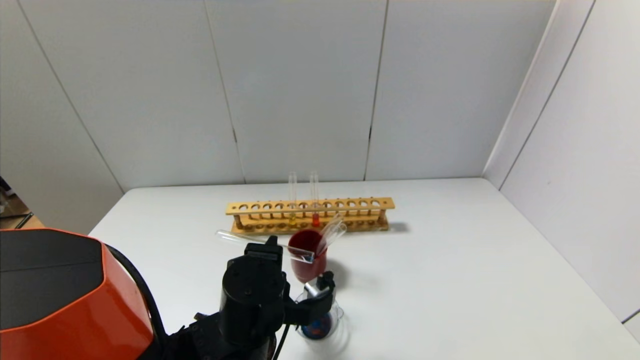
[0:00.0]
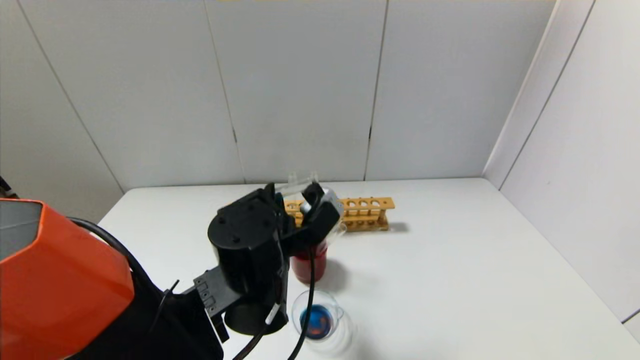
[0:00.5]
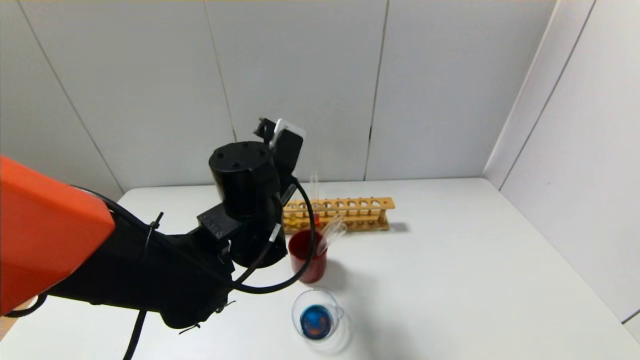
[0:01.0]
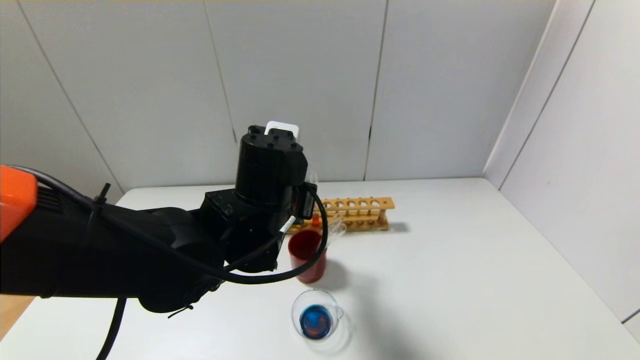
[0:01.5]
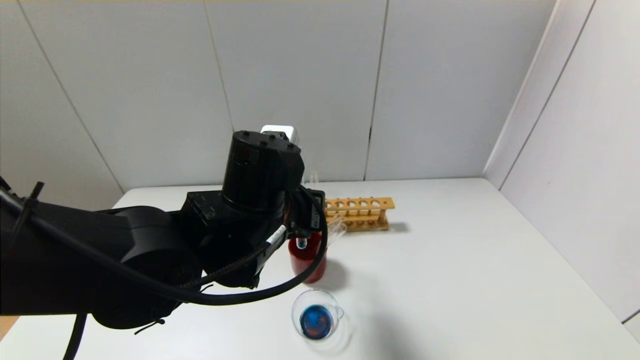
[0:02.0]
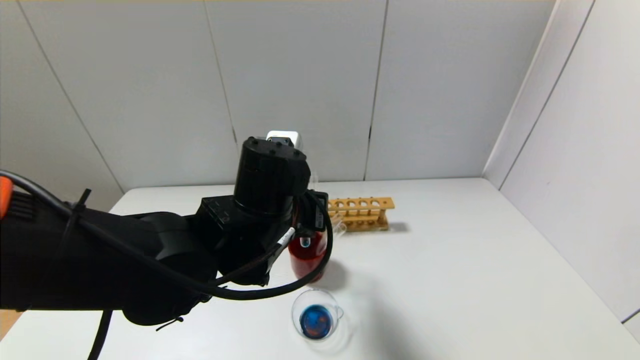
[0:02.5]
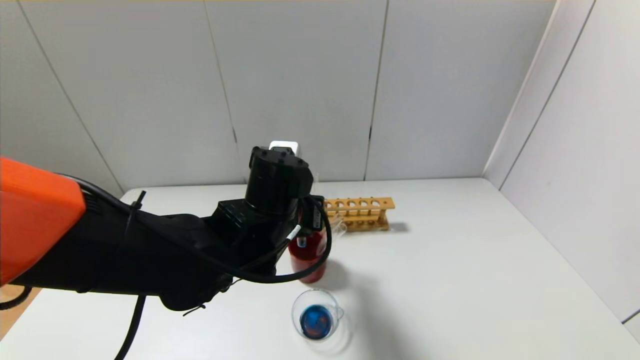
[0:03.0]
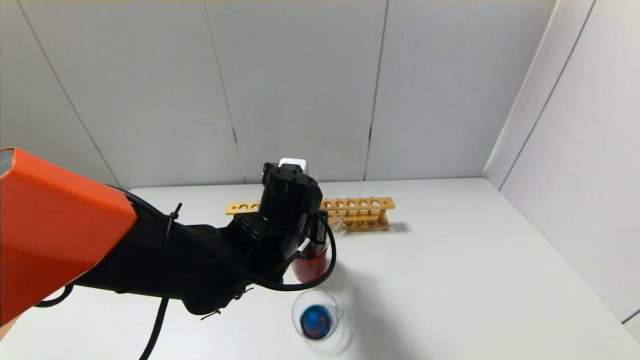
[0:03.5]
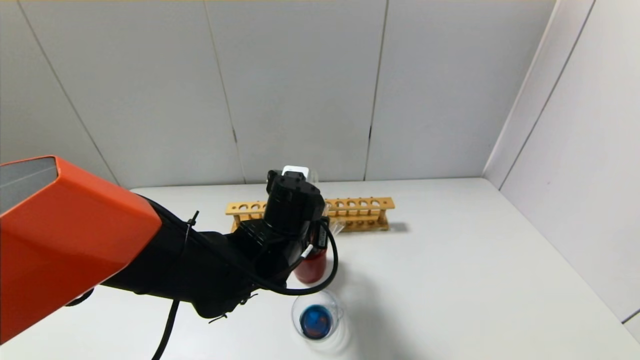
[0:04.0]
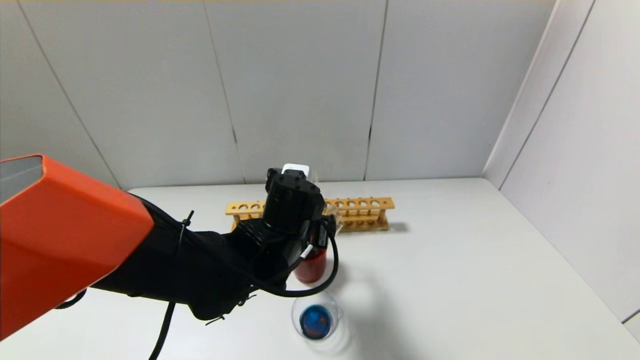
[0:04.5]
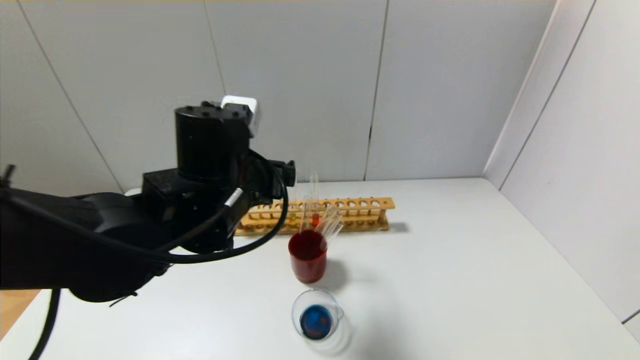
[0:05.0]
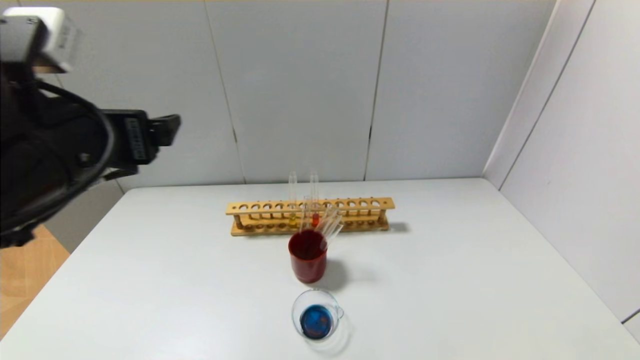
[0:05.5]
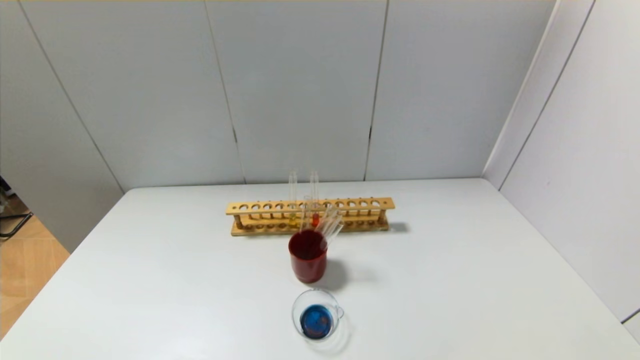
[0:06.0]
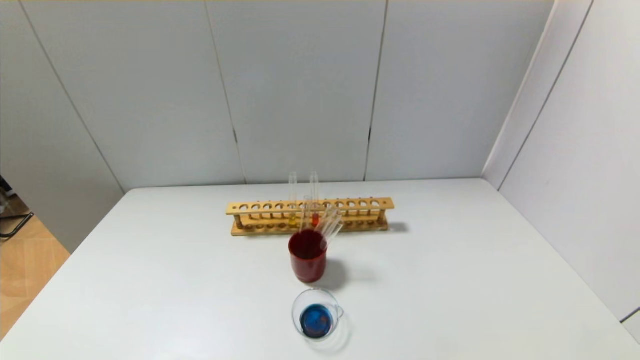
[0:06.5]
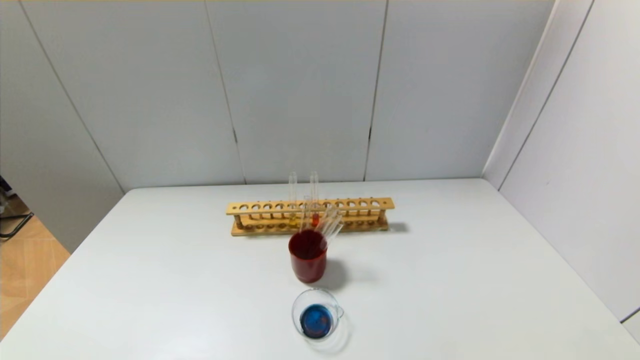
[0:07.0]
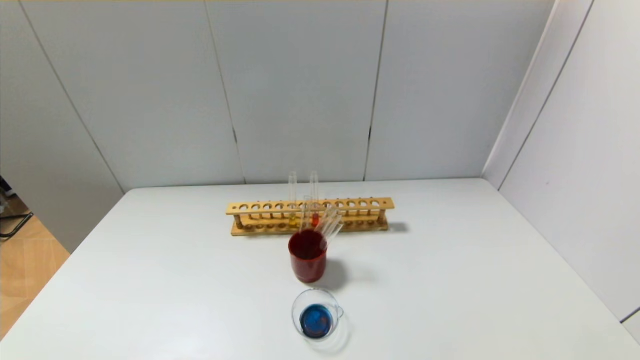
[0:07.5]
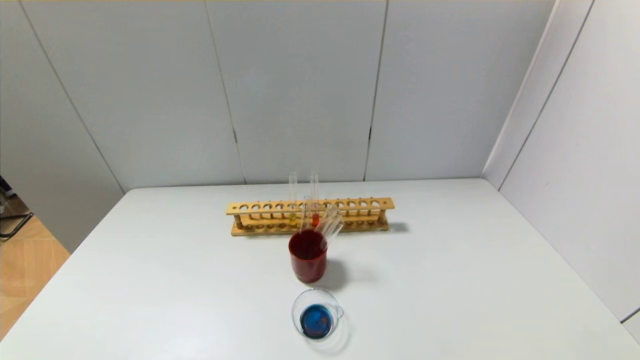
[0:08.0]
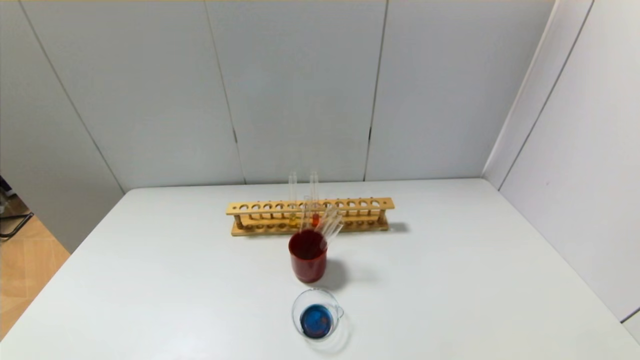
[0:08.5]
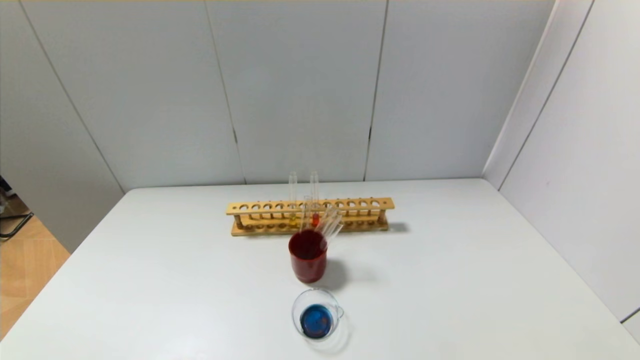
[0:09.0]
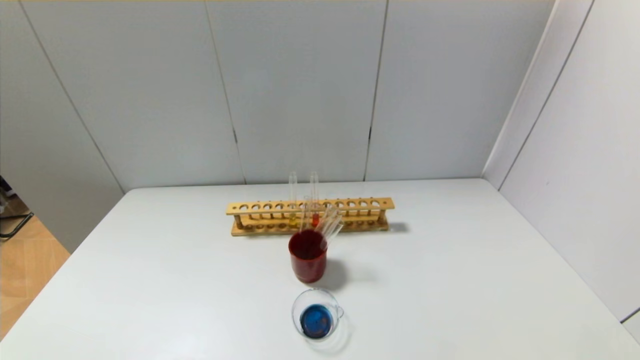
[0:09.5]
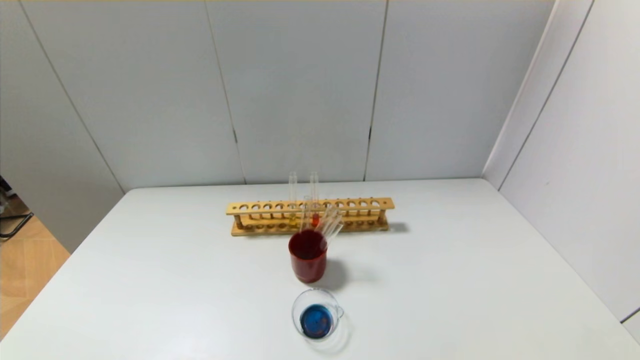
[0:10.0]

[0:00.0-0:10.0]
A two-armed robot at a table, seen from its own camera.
Step, 0:00.0 to 0:04.0: Place the test tube into the brown cup with the left gripper.
0:00.0 to 0:02.0: The left gripper shifts about 10 cm upward.
0:02.0 to 0:04.0: The left gripper moves downward, roughly 10 cm.
0:04.0 to 0:06.0: The left gripper goes some 35 cm to the left, backward and upward, and opens up.
0:08.0 to 0:10.0: The two grippers keep their place.

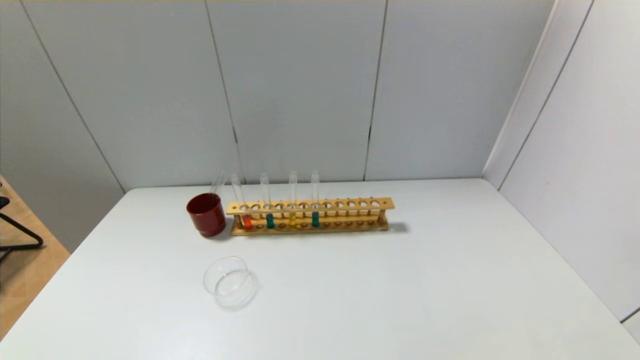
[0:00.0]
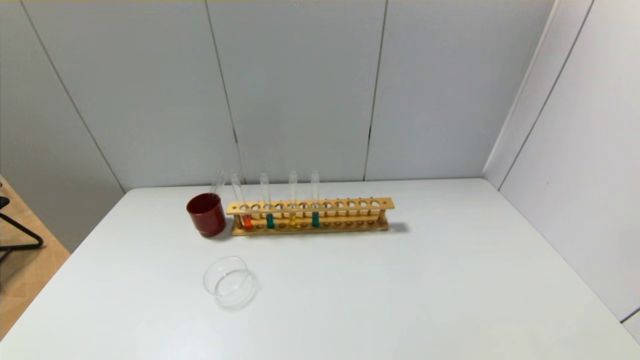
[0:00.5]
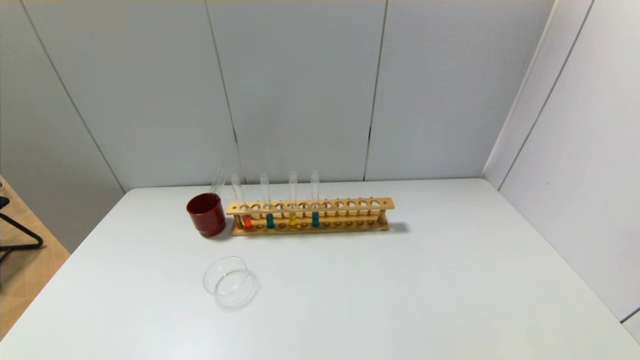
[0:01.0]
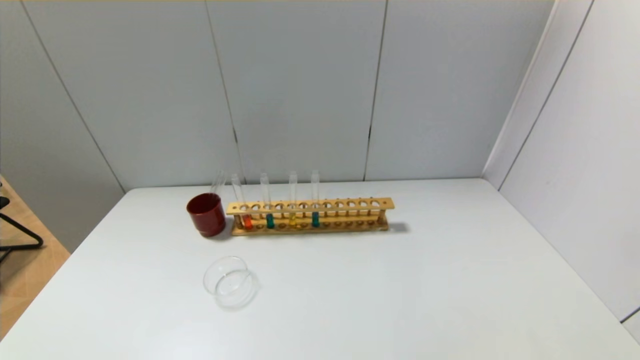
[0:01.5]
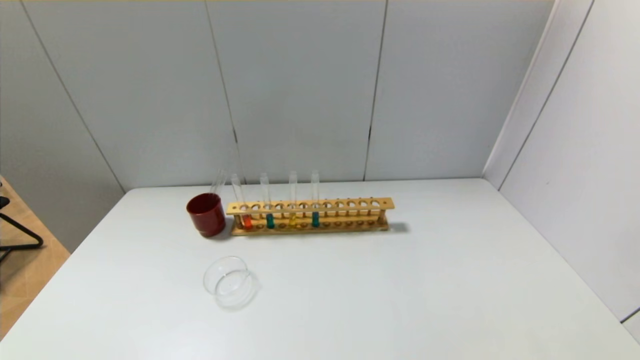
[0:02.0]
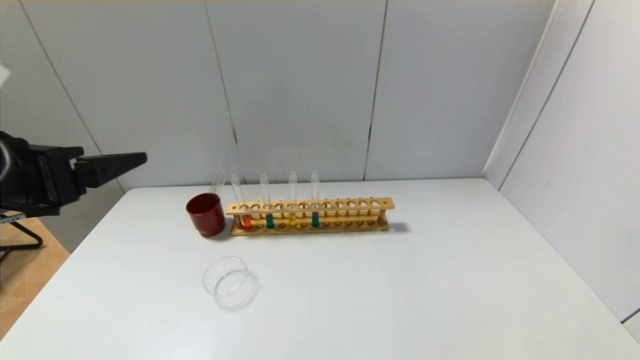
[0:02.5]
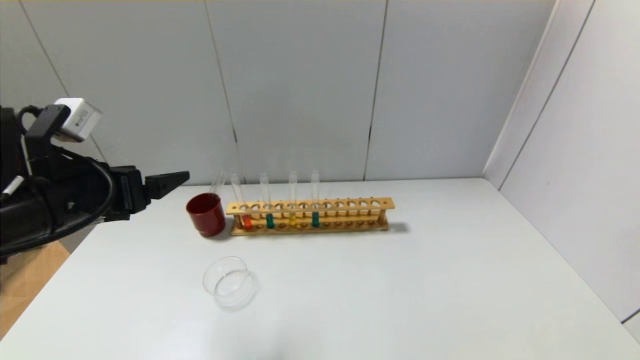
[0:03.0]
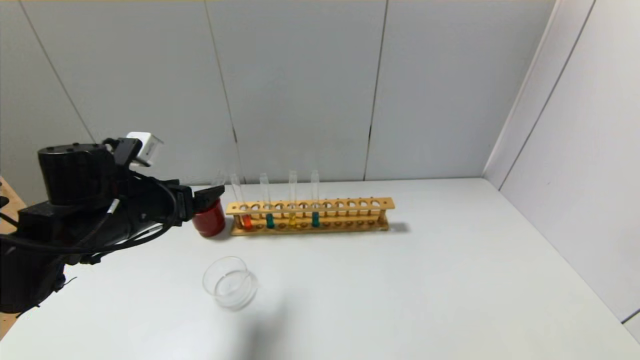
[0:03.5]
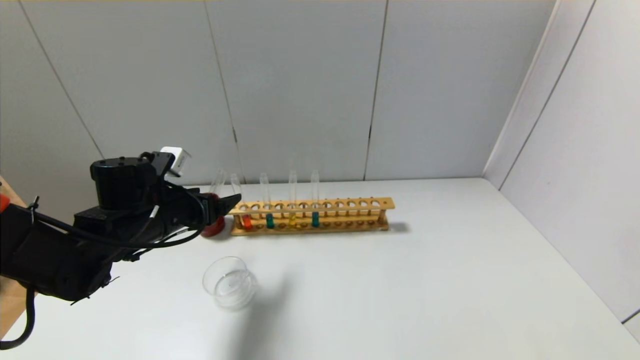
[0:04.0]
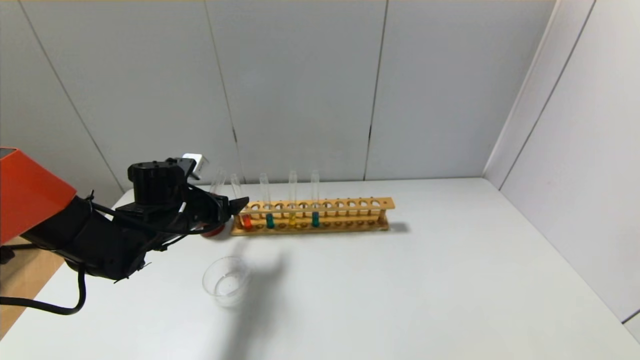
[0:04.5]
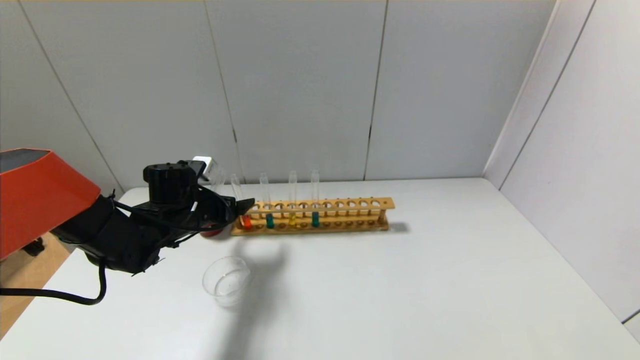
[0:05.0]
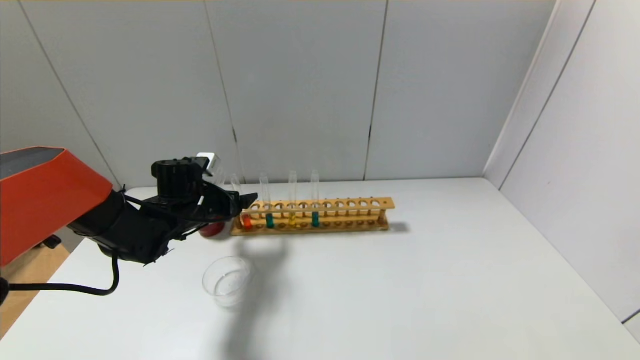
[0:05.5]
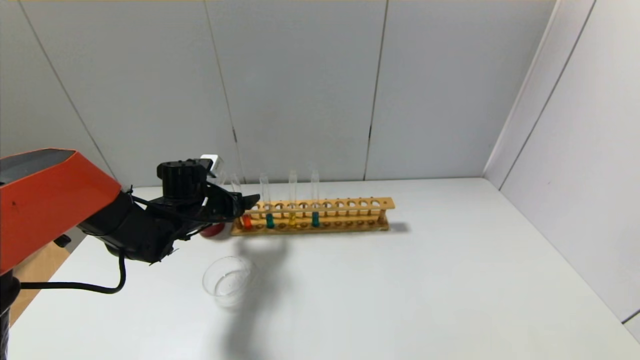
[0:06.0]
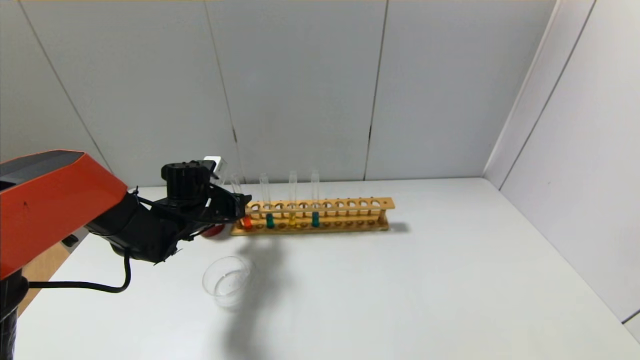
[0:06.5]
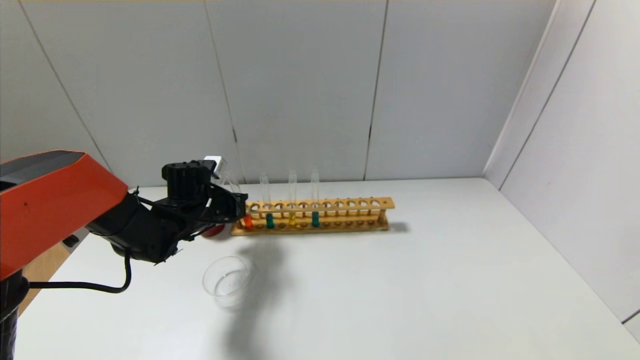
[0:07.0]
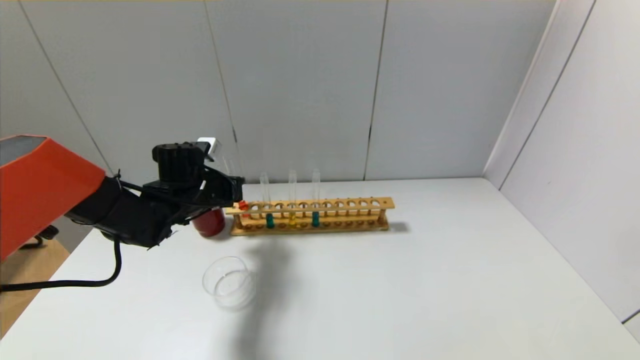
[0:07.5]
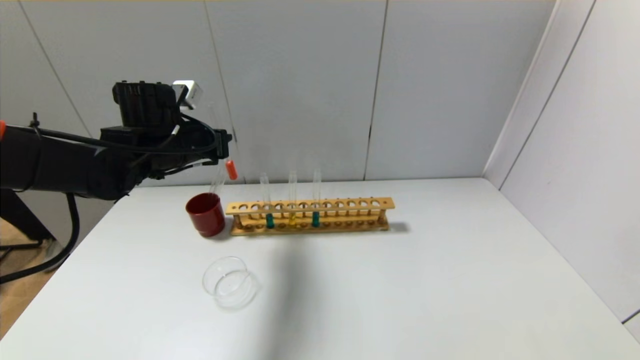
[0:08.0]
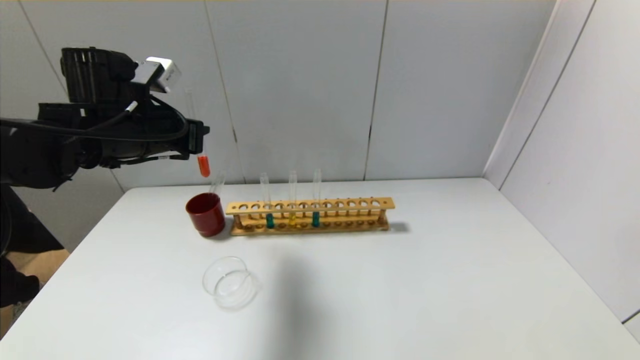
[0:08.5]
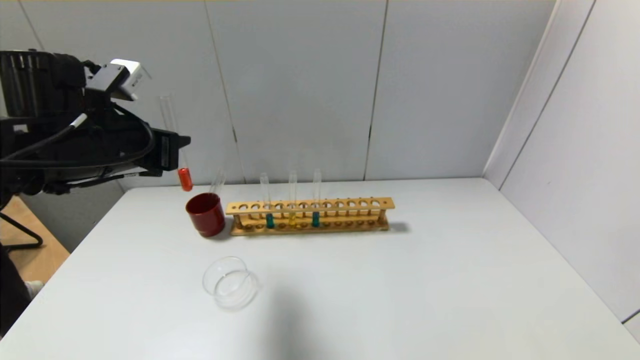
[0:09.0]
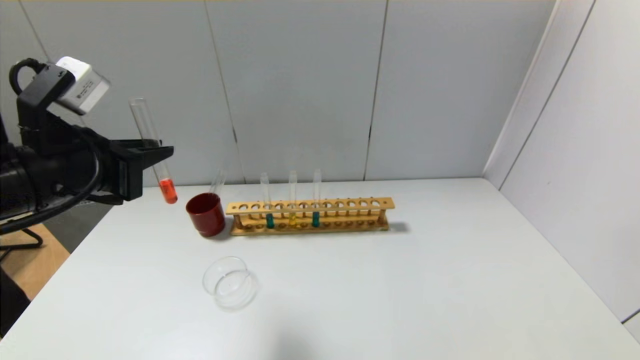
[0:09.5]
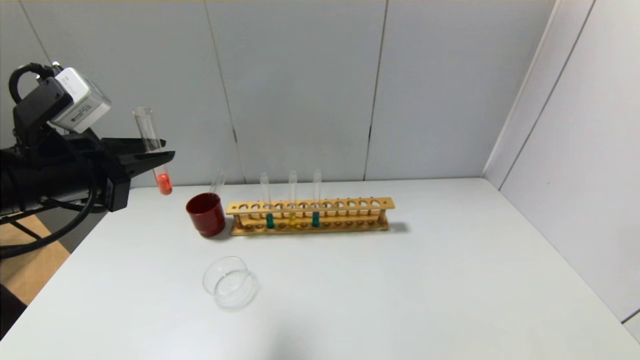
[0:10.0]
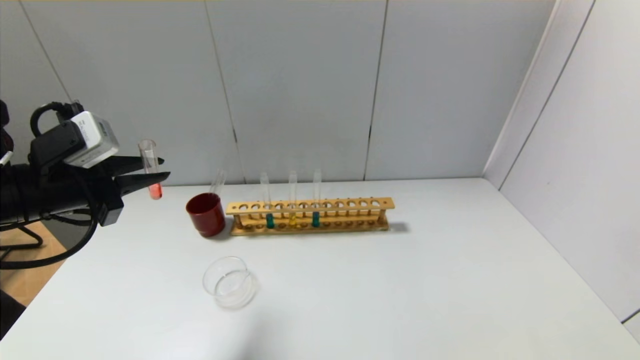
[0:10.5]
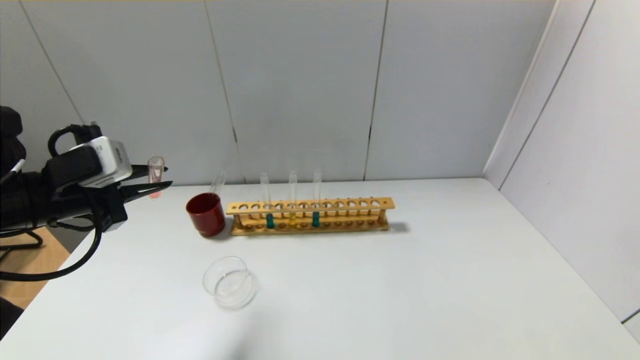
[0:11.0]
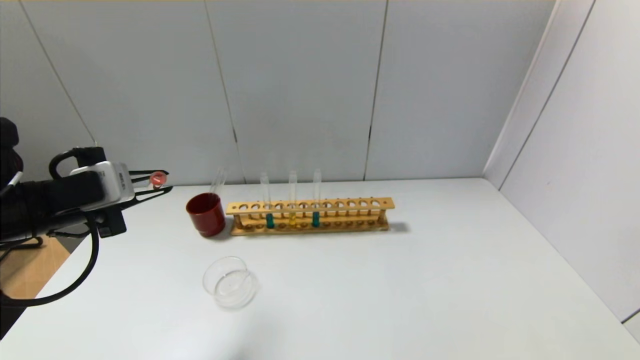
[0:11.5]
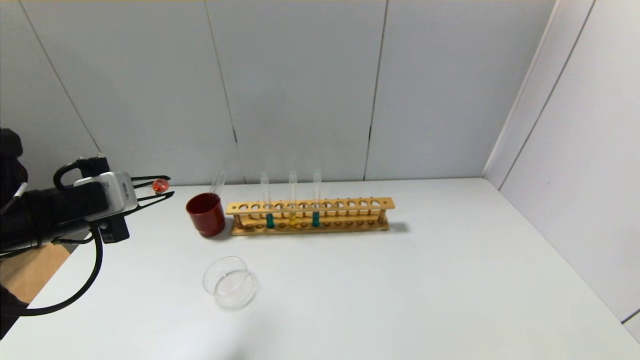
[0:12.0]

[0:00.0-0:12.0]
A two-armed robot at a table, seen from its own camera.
Step, 0:00.0 to 0:06.5: Grasp the red reagent with the left gripper.
0:02.0 to 0:04.0: The left gripper moves forward and downward, roughly 30 cm.
0:04.0 to 0:06.0: The left gripper goes about 10 cm forward.
0:06.0 to 0:08.0: The left gripper shifts approximately 15 cm upward, and closes its fingers.
0:08.0 to 0:10.0: The left gripper is displaced backward by some 15 cm.
0:10.0 to 0:12.0: The left gripper moves downward, roughly 5 cm.
